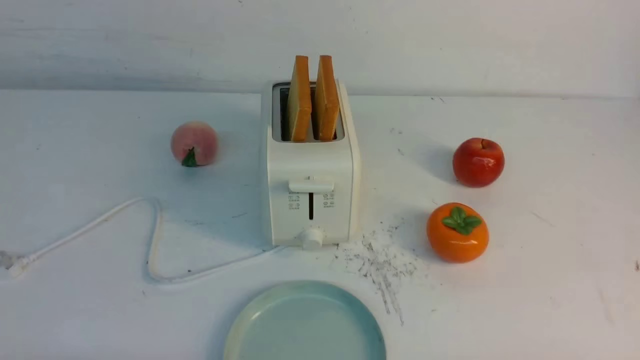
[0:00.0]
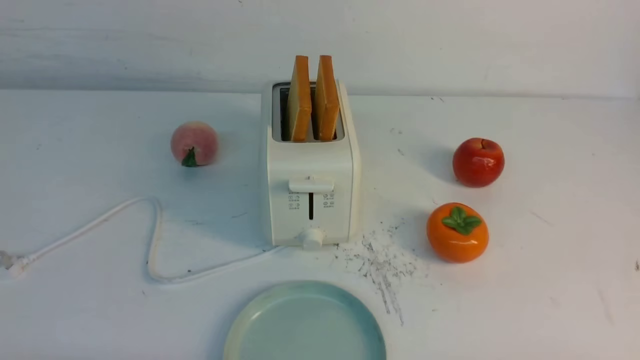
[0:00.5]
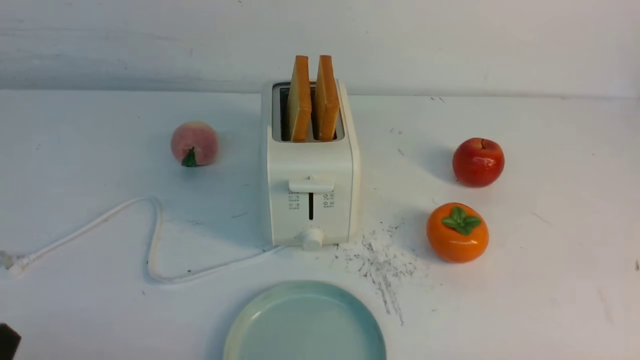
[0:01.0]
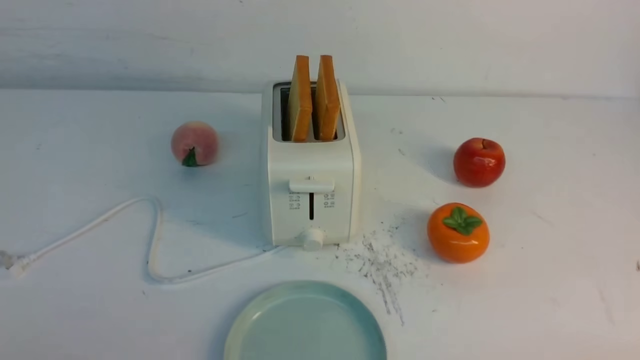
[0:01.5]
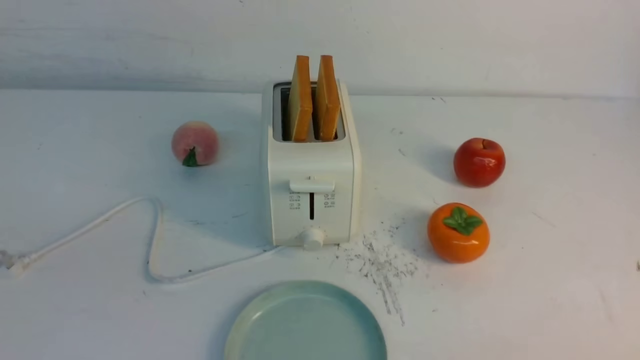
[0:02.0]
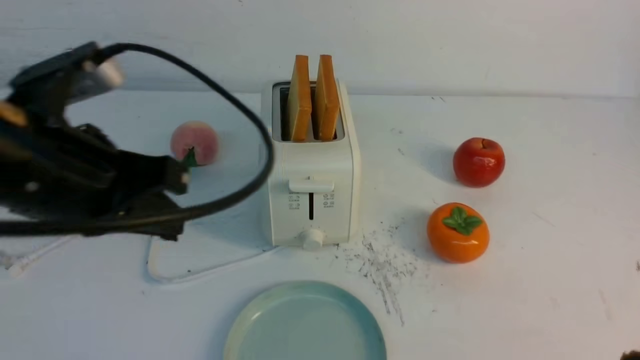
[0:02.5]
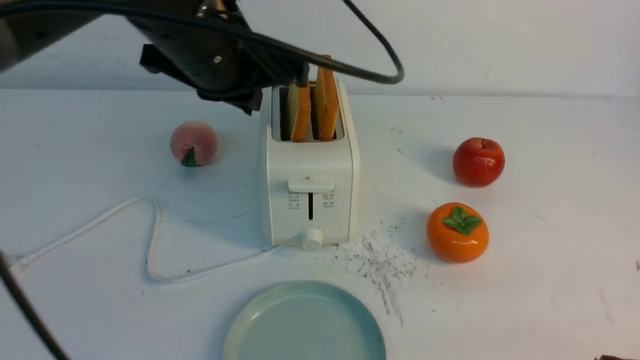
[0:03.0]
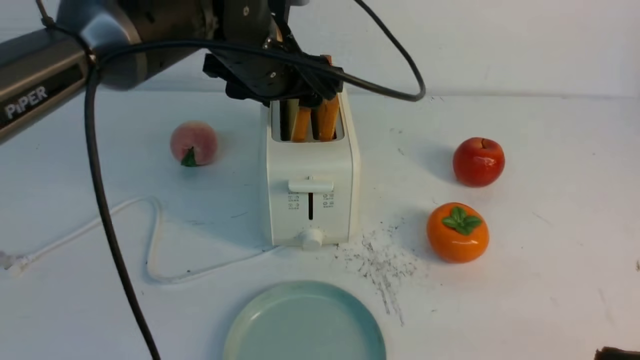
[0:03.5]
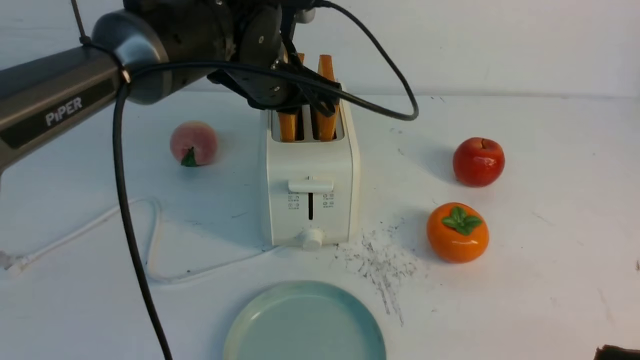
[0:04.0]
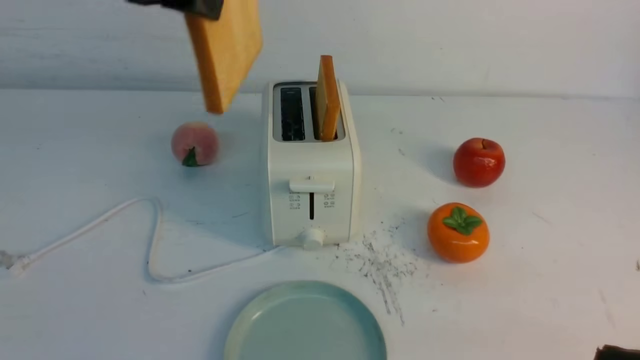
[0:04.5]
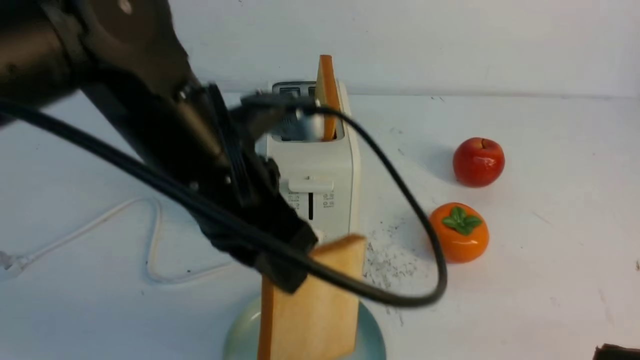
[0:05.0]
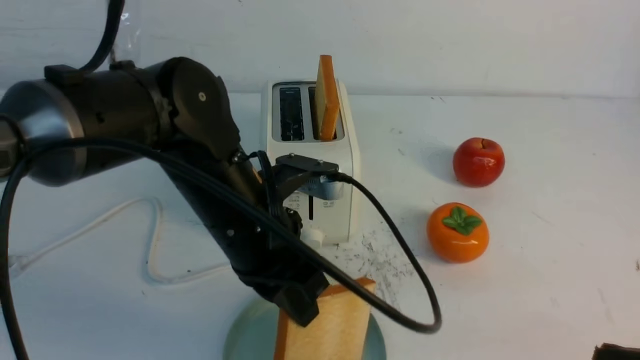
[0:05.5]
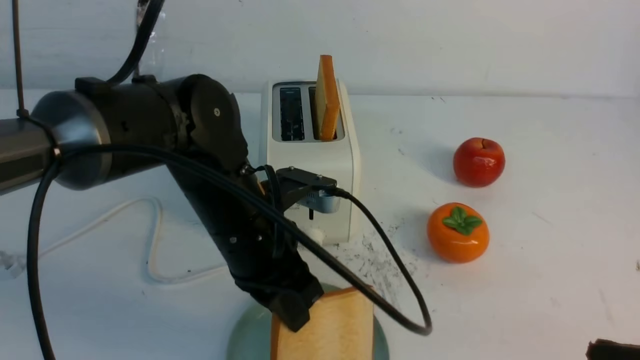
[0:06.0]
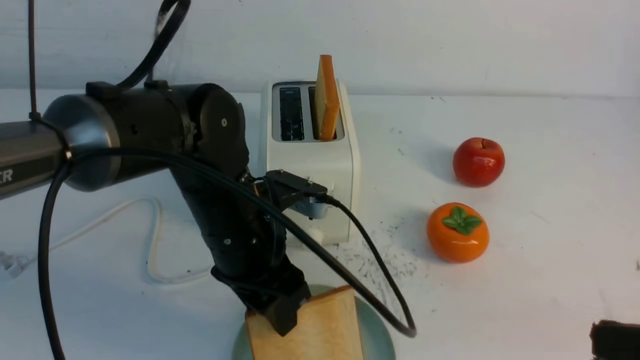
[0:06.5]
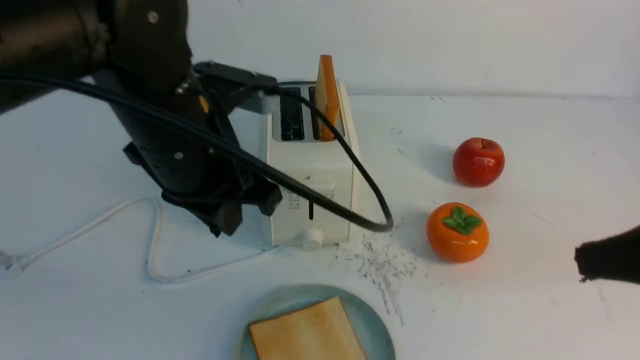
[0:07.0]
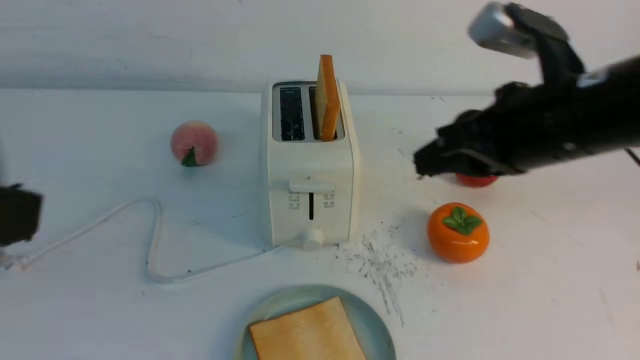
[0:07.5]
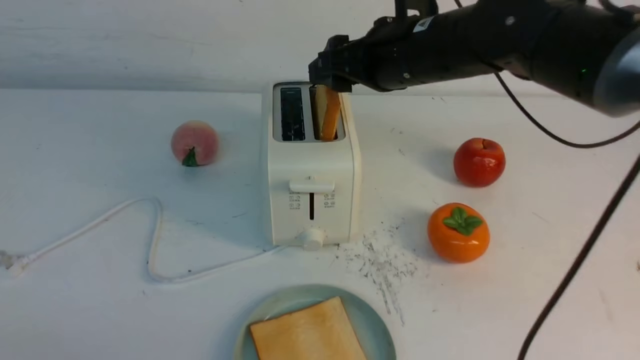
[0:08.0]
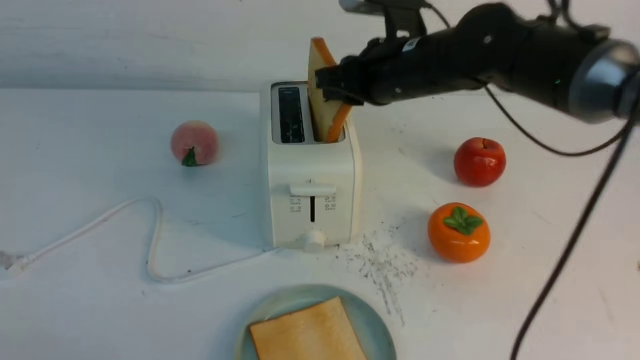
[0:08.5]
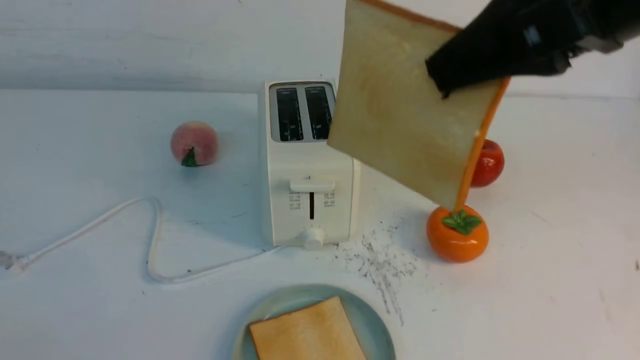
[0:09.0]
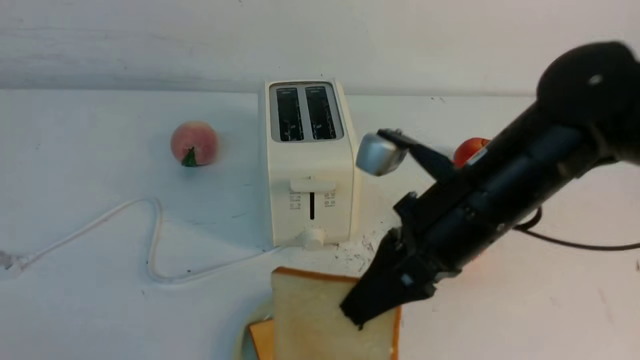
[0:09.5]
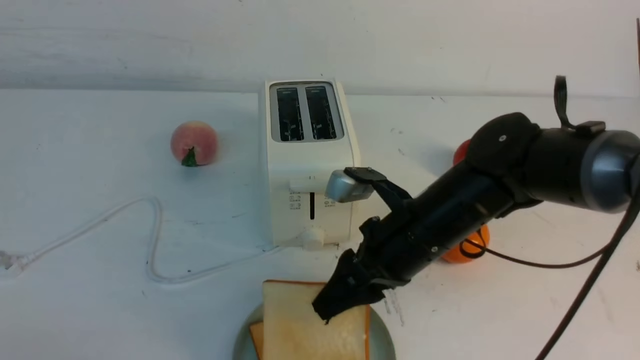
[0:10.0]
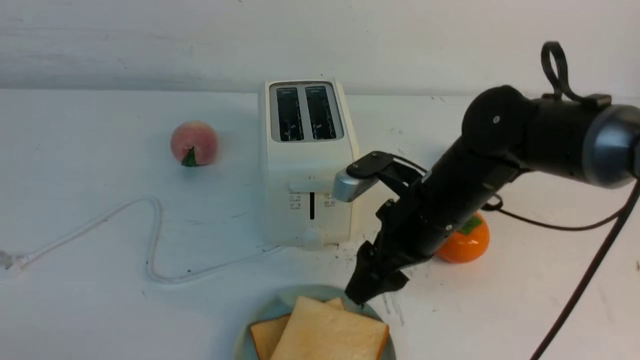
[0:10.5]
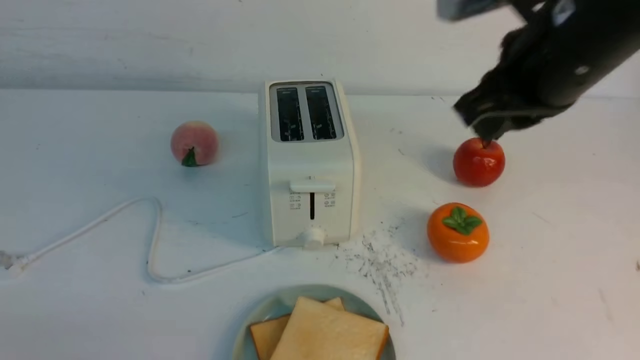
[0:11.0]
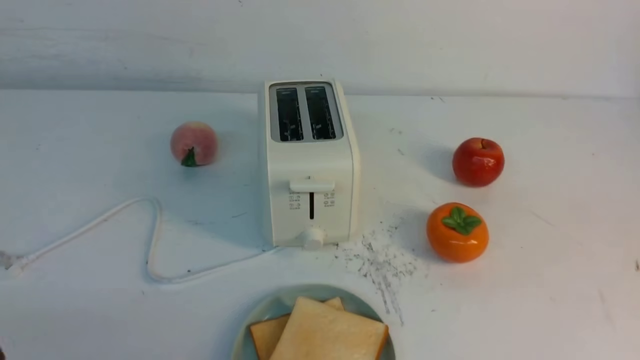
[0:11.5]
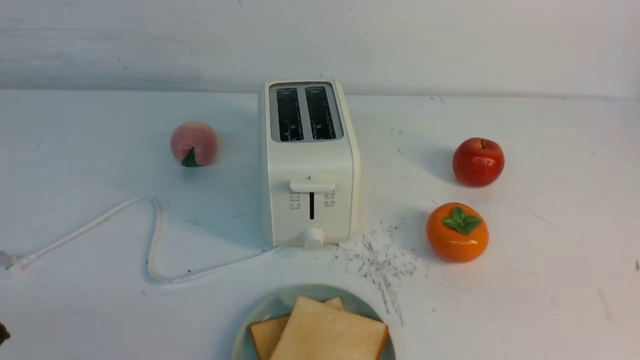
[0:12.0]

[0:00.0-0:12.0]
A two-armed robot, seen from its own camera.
Task of the whole recording: take toasted bread from bread machine on white table place on plate.
Step, 0:00.0 to 0:04.0: use the left arm to take out a slice of bread.
Step, 0:04.5 to 0:06.5: use the left arm to put a slice of bread into the empty plate.
Step, 0:07.0 to 0:08.5: use the right arm to take out a slice of bread.
Step, 0:09.0 to 0:10.0: use the right arm to put a slice of bread into the plate.
0:02.0 to 0:04.0: The right gripper shifts about 10 cm upward, and closes. Meanwhile the left gripper travels forward and to the right by about 35 cm, and opens up.
0:04.0 to 0:06.0: The left gripper travels backward and downward by about 15 cm.
0:06.0 to 0:08.0: The right gripper travels forward and to the left by about 35 cm, and opens up; the left gripper moves backward and to the left, approximately 35 cm, and opens and closes again.
0:08.0 to 0:10.0: The right gripper goes about 15 cm downward and backward, and closes, then reopens.
0:10.0 to 0:12.0: The right gripper heads backward and to the right, covering approximately 35 cm, and closes its fingers.

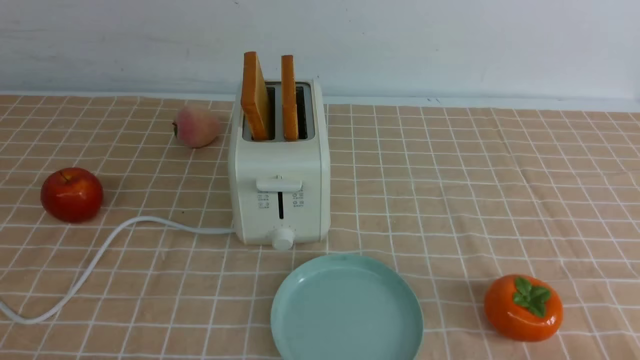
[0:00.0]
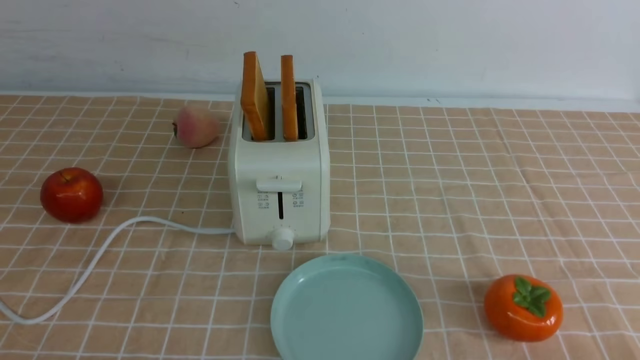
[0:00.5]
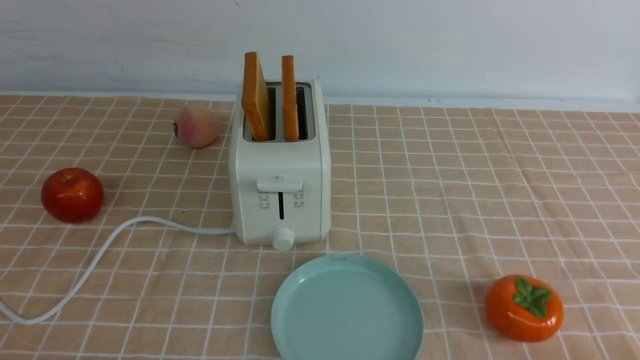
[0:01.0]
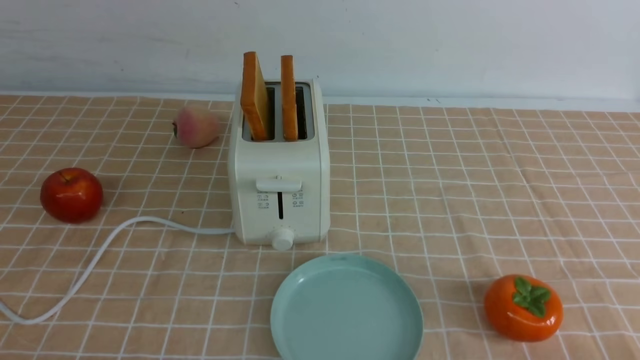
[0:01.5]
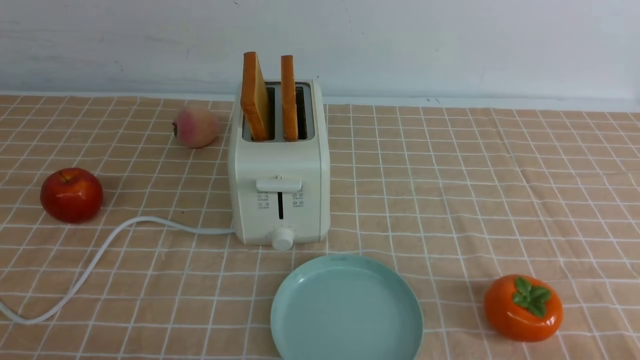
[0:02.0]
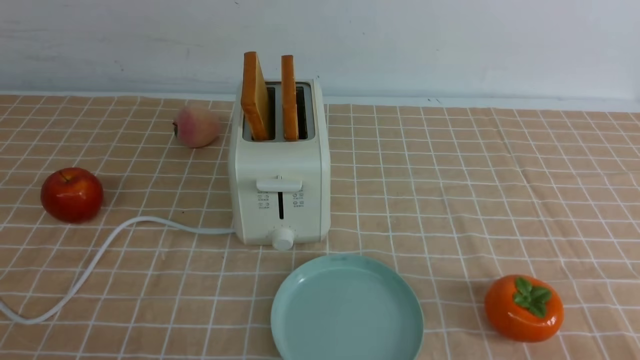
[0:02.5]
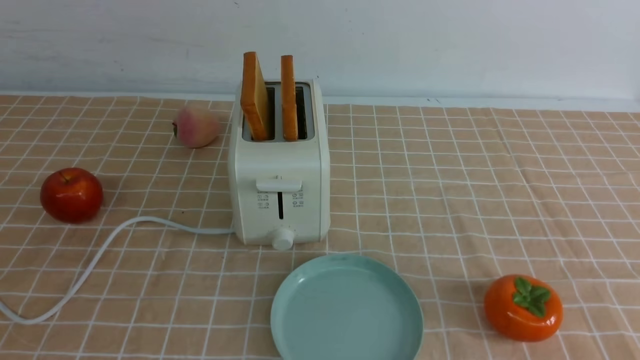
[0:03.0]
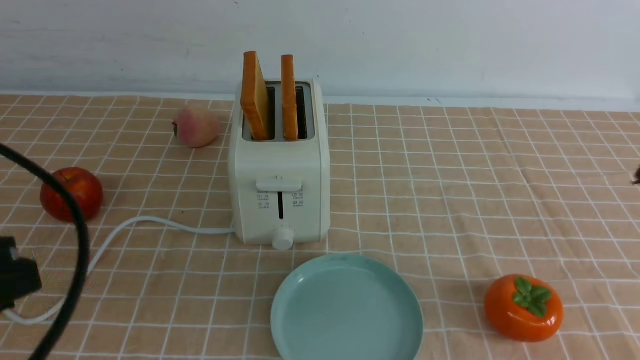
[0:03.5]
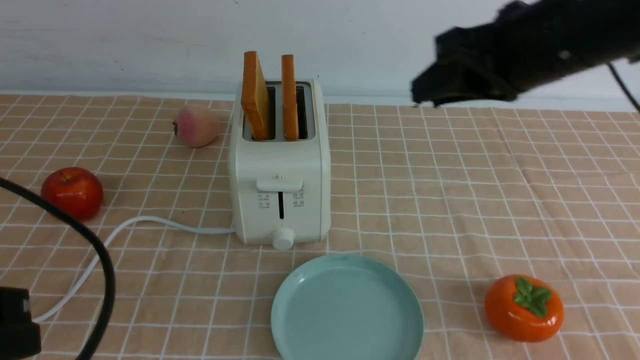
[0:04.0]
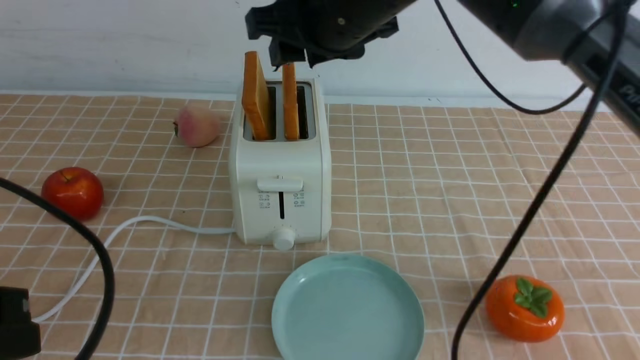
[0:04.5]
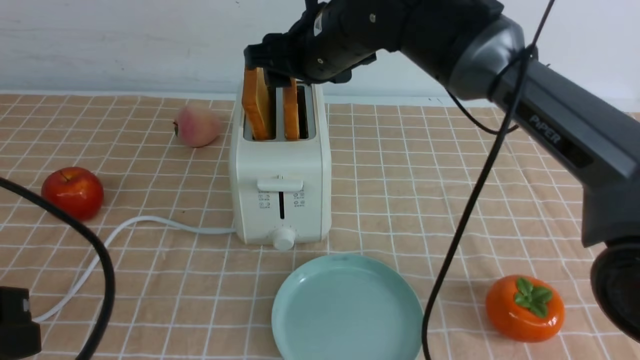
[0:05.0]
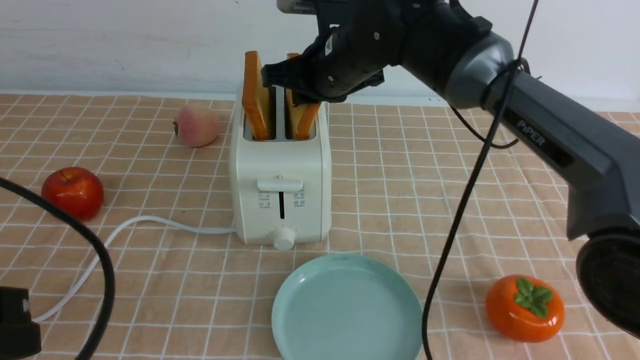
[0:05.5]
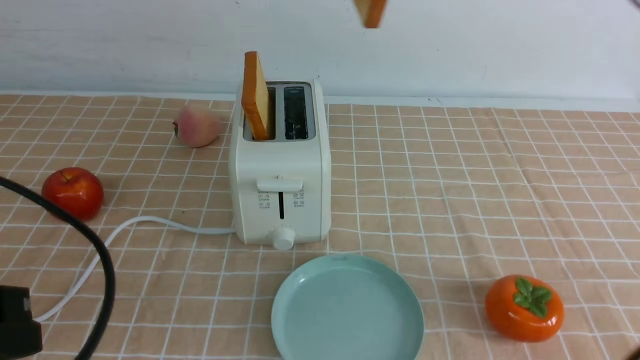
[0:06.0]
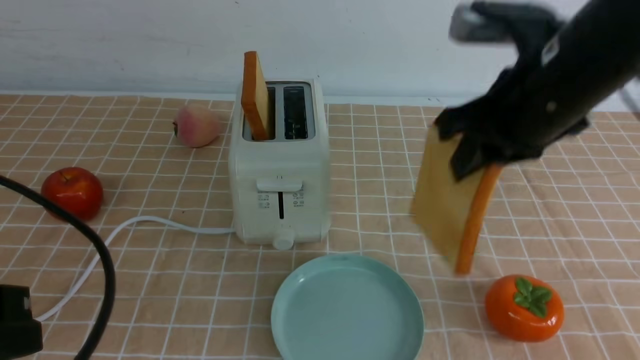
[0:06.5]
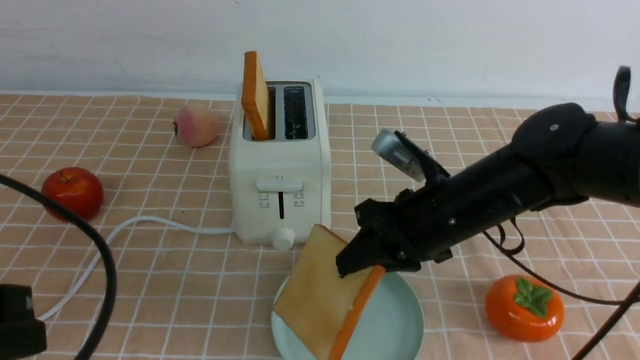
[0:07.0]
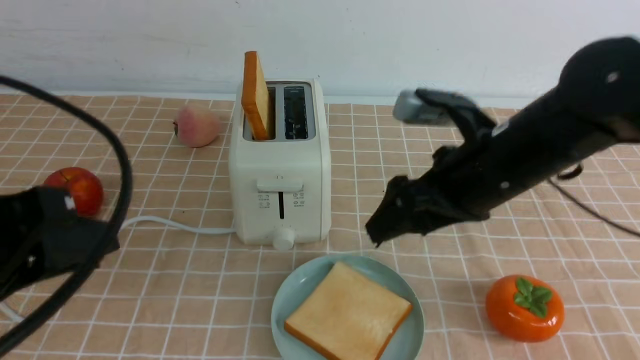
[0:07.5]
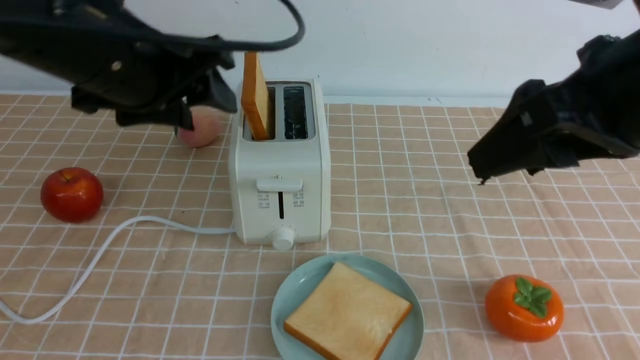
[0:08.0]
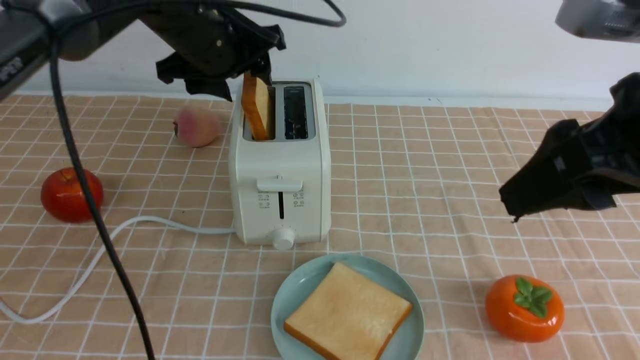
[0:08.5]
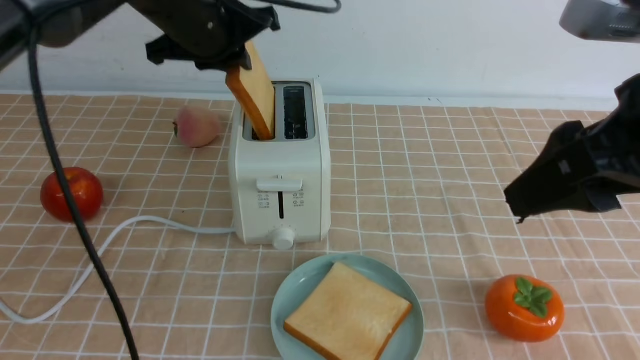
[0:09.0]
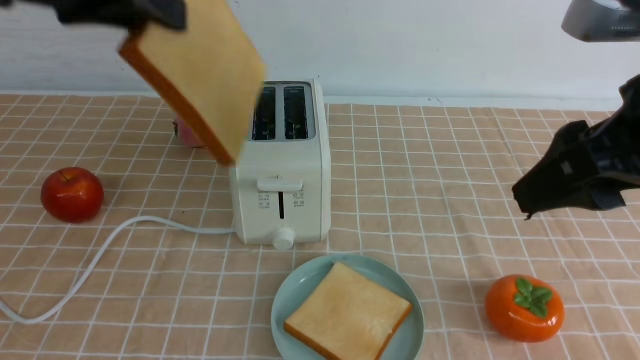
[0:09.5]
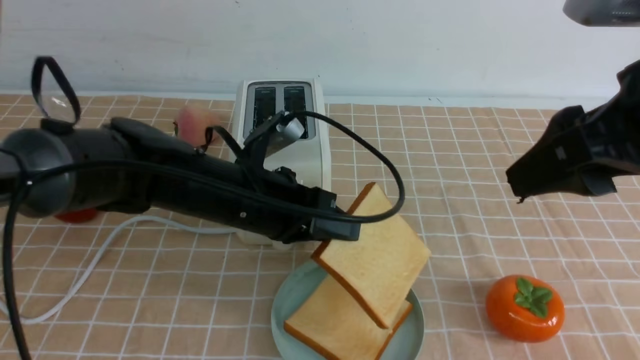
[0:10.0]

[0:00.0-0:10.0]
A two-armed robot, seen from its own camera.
Task of the whole recording: take toasted bread from bread machine on light coffee tablecloth place on plate.
Step, 0:00.0 to 0:05.5: use the right arm to take out a slice of bread.
Step, 0:06.0 to 0:07.0: use the right arm to put a slice of bread into the plate.
Step, 0:07.5 to 0:09.0: use the left arm to take out a slice of bread.
0:02.0 to 0:04.0: The left gripper shifts approximately 10 cm upward and forward, while the right gripper moves forward, upward and to the left, roughly 35 cm.
0:04.0 to 0:06.0: The right gripper is displaced upward by some 10 cm.
0:06.0 to 0:08.0: The left gripper heads forward, covering some 20 cm, and opens. Meanwhile the right gripper is displaced backward and to the right by about 15 cm, moves about 25 cm downward and comes back, and opens its fingers.
0:08.0 to 0:10.0: The left gripper swings up and down, about 20 cm each way, with 2 reversals, and closes.
